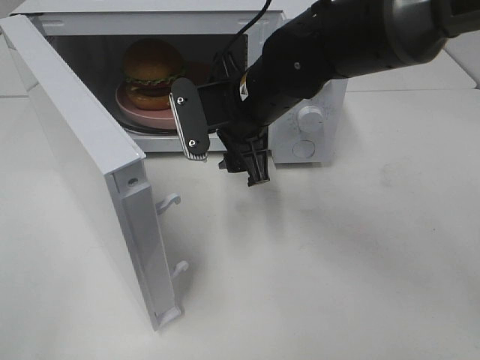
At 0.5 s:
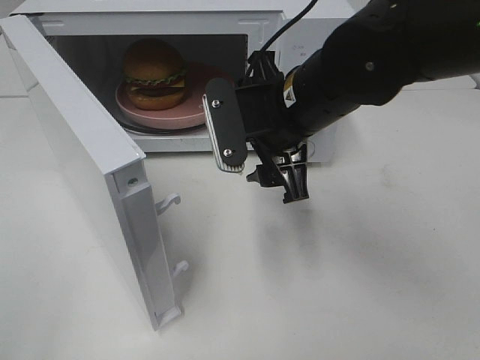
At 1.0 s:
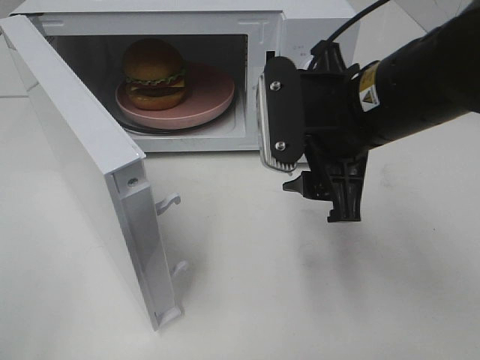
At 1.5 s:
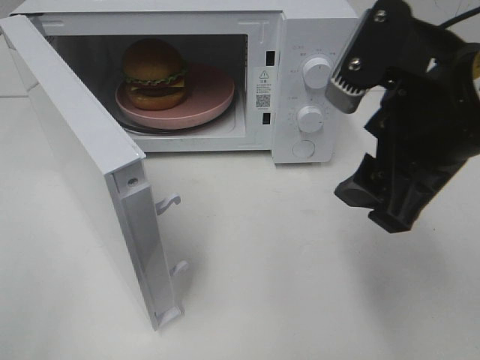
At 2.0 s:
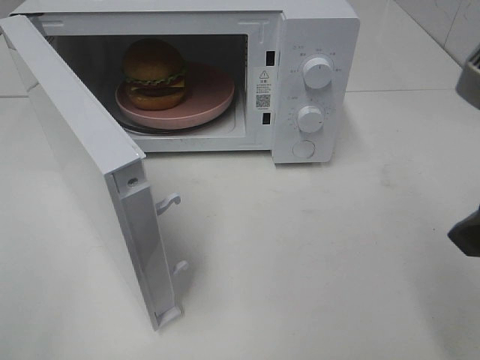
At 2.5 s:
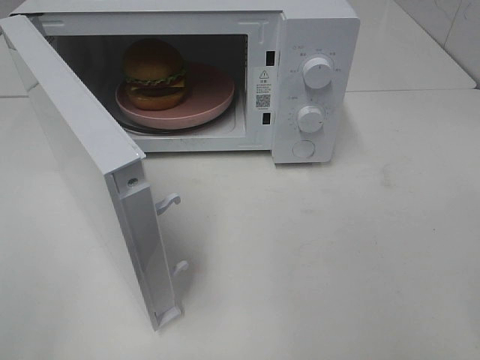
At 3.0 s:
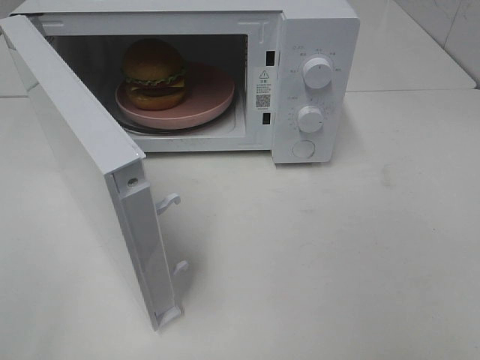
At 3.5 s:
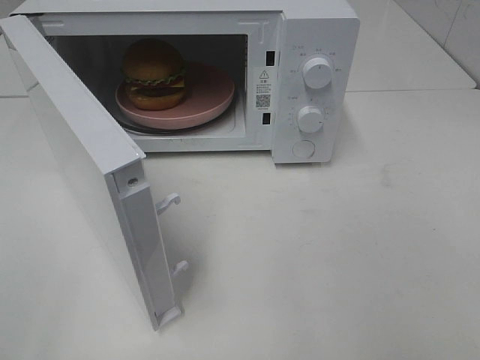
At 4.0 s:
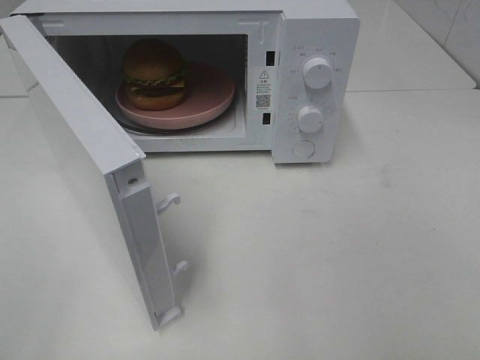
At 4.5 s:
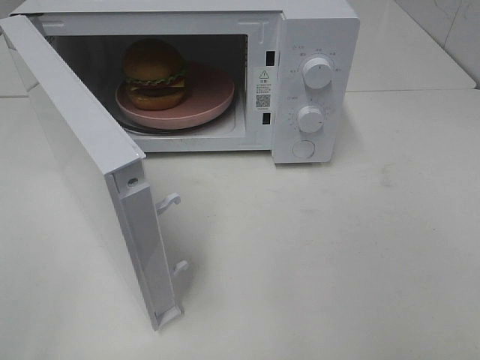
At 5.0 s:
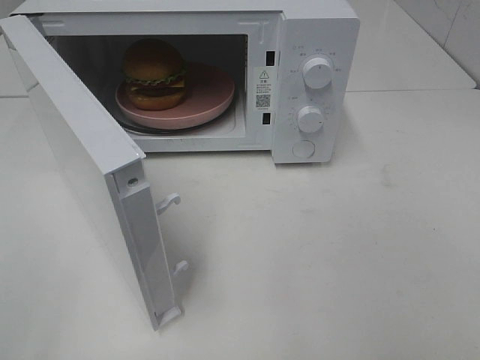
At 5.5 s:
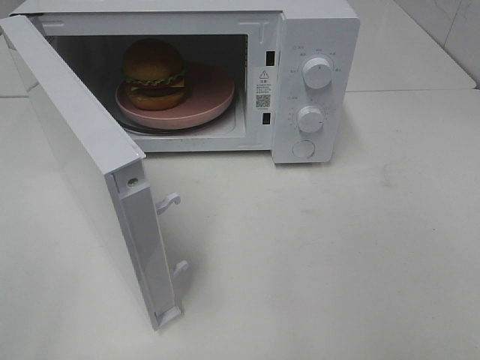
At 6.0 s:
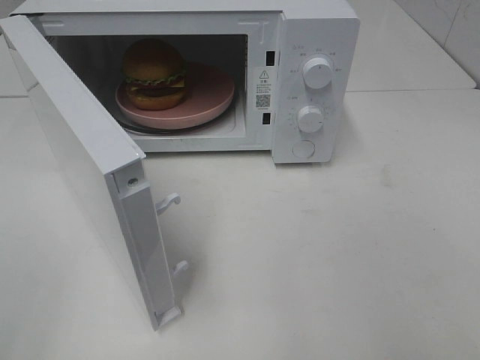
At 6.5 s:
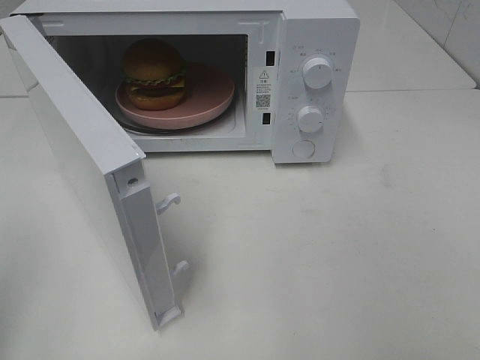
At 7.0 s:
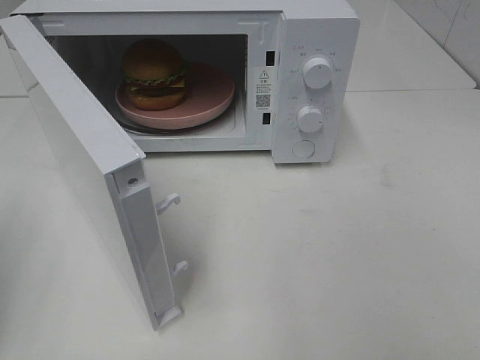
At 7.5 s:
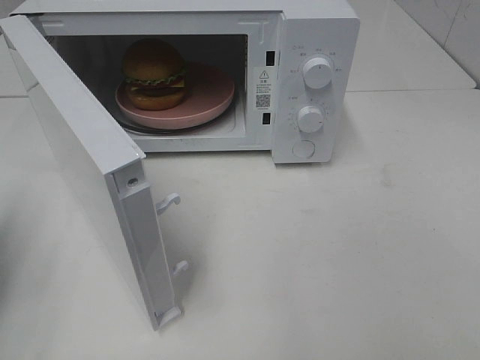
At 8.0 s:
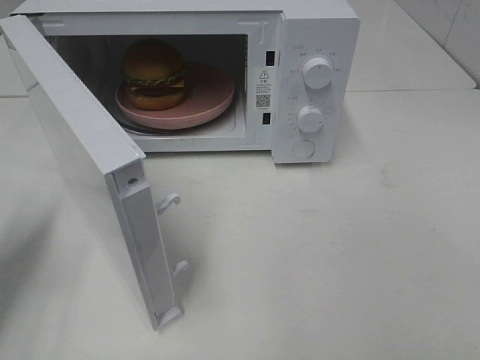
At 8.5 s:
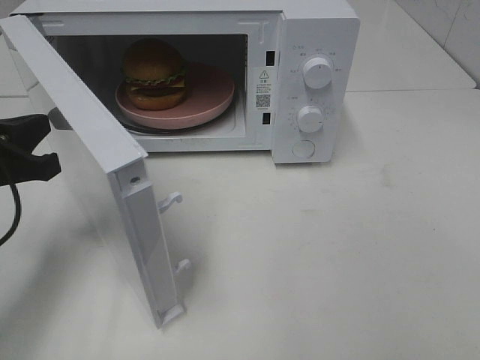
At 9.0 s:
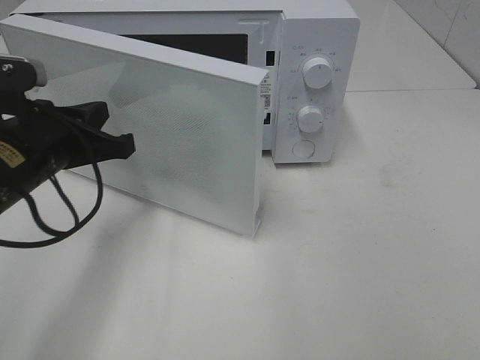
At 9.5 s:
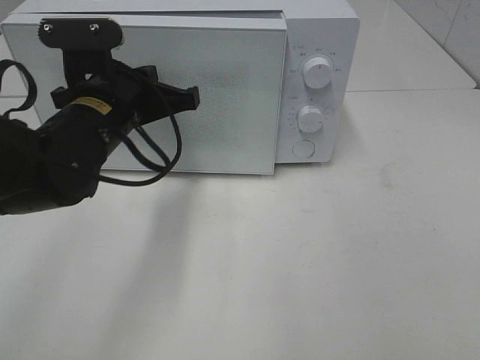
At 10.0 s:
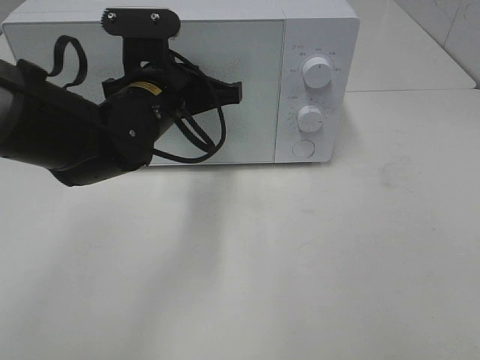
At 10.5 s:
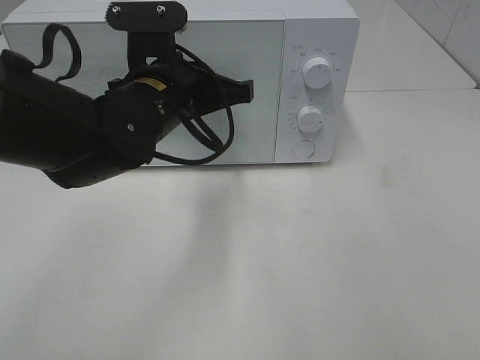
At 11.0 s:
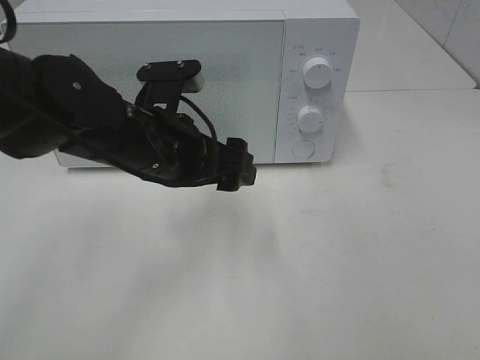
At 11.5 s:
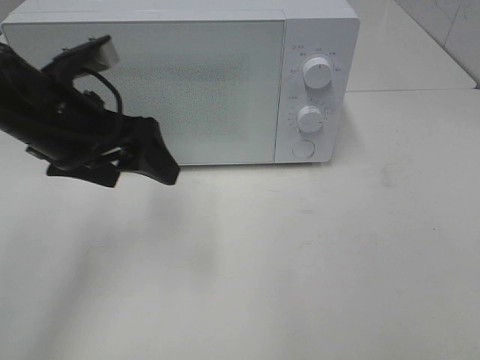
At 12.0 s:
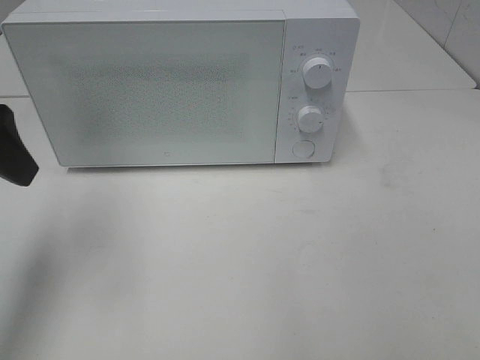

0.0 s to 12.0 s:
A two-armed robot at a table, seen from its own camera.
Task of the whole recording: Heat the burger.
Step, 0.0 to 10.5 s: Left hand: close the microwave door.
0.0 to 2.0 s: The right gripper moves backward, to the right and upward, roughly 30 cm.
2.0 to 4.0 s: The right gripper moves backward and to the right, about 15 cm.
6.0 to 8.0 s: The left gripper heads forward and downward, covering about 25 cm, and closes its fingers.
8.0 to 10.0 s: The left gripper shifts roughly 25 cm to the right and forward.
10.0 to 12.0 s: The left gripper moves to the left, upward and backward, some 25 cm, and opens up.

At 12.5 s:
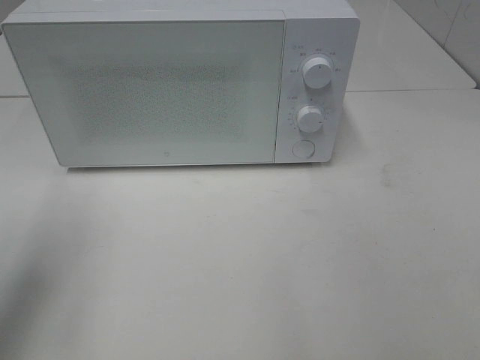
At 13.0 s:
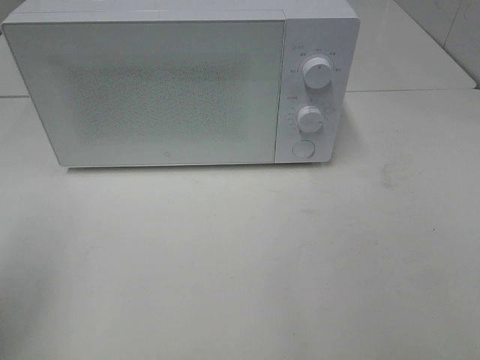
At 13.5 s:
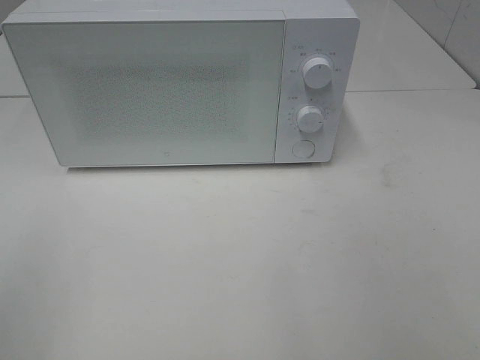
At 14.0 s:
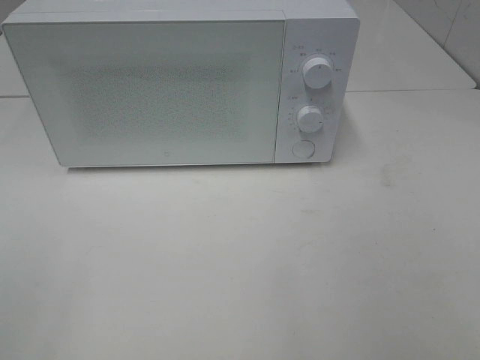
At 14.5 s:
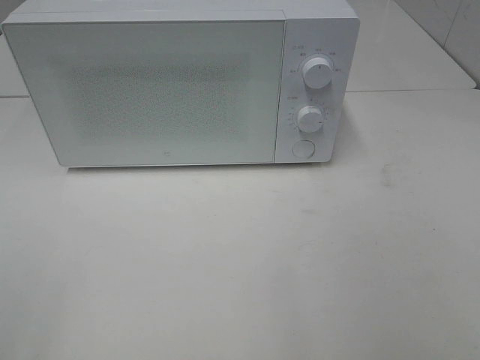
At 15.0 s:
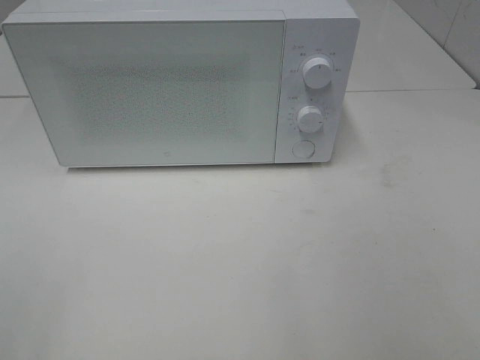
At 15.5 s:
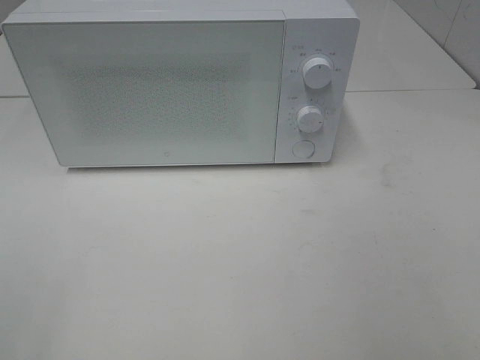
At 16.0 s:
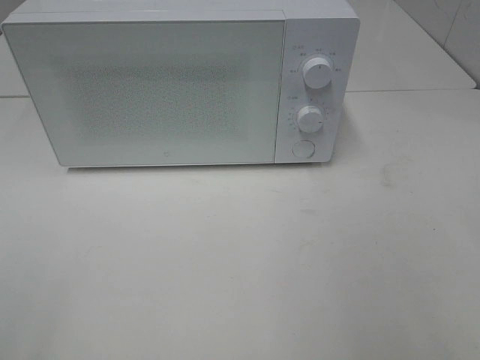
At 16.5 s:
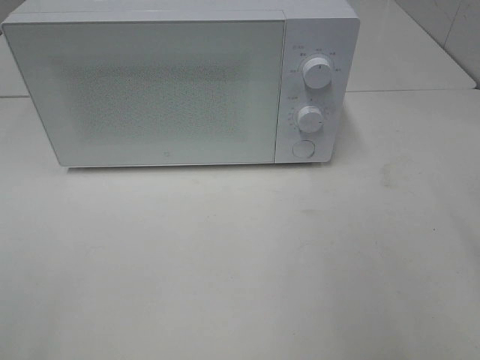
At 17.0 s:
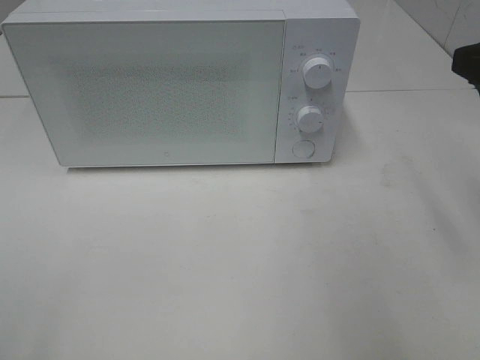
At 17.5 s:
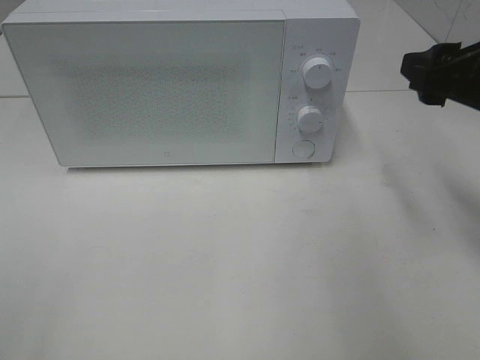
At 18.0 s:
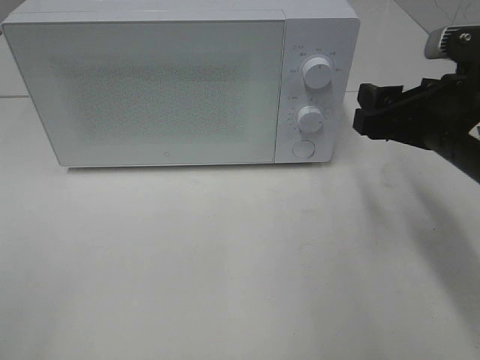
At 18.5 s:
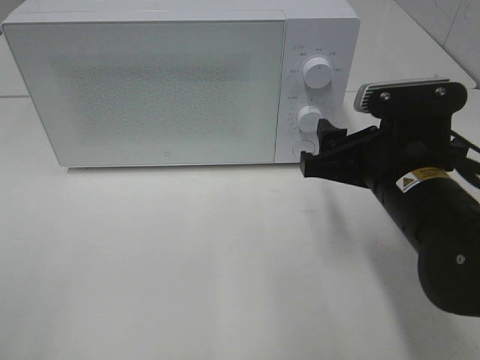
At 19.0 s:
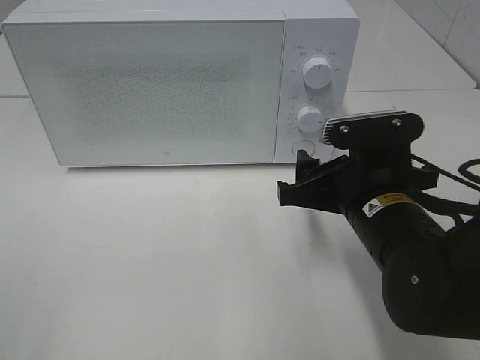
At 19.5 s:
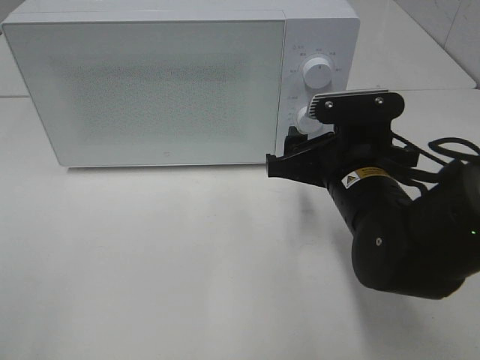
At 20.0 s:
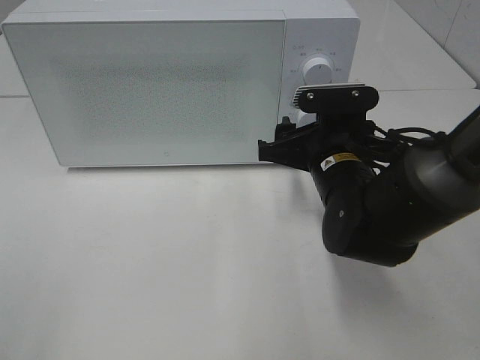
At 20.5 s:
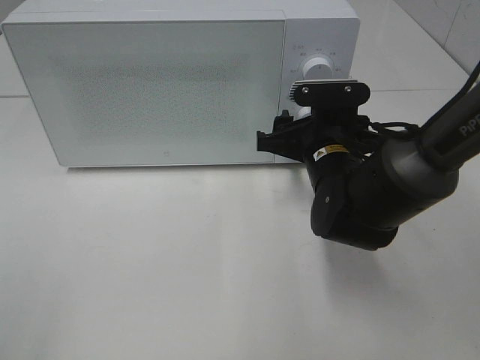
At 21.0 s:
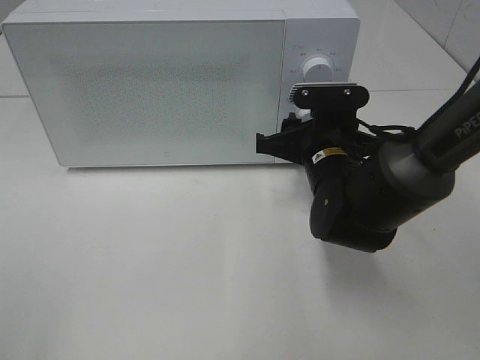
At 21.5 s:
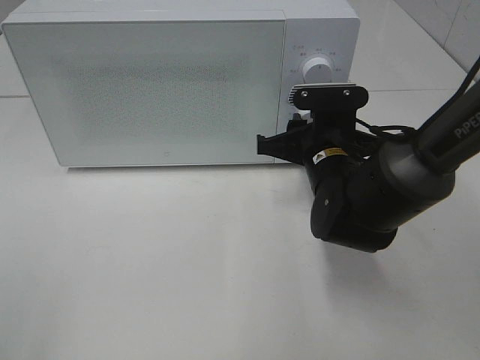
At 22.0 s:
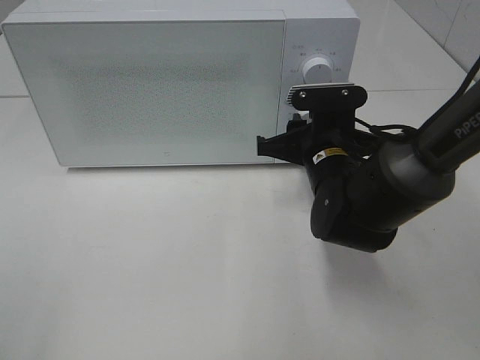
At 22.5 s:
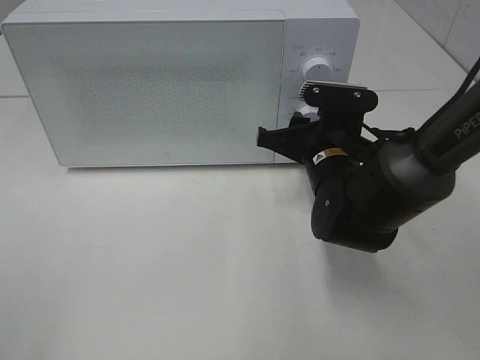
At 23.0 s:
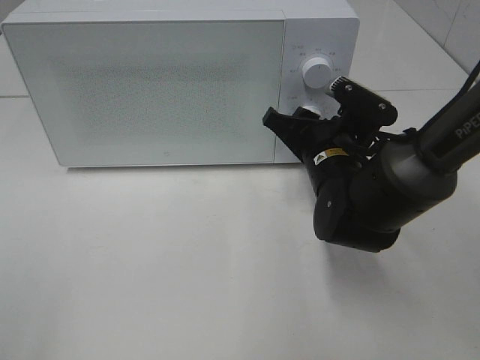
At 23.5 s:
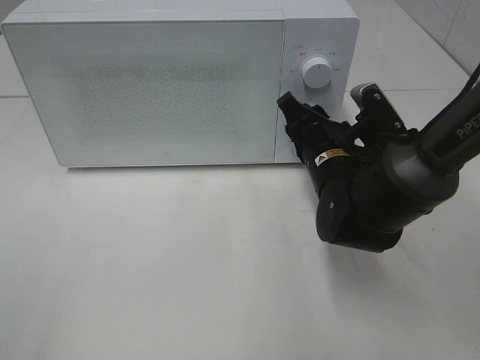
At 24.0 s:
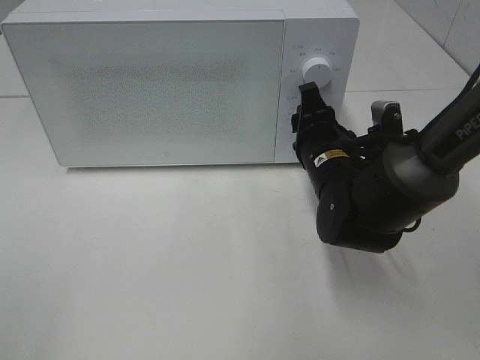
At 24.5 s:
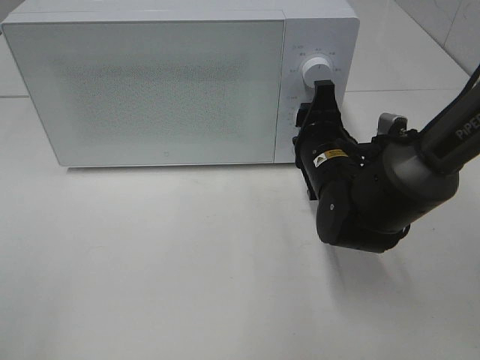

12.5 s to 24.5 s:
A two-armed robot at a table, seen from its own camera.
Task of the whole recording: Heat the burger.
12.5 to 14.5 s: The left gripper goes some 20 cm backward.
16.5 to 18.5 s: The right gripper is displaced downward, to the left and forward by roughly 20 cm.
18.5 to 20.5 s: The right gripper moves forward, approximately 10 cm.
20.5 to 22.5 s: The right gripper closes its fingers.

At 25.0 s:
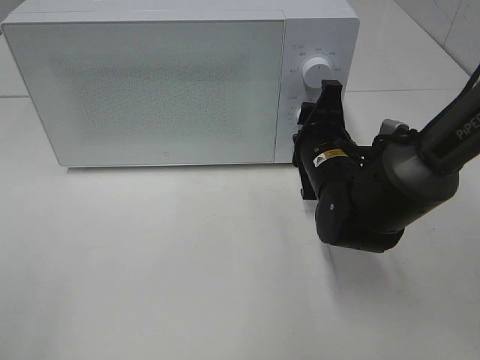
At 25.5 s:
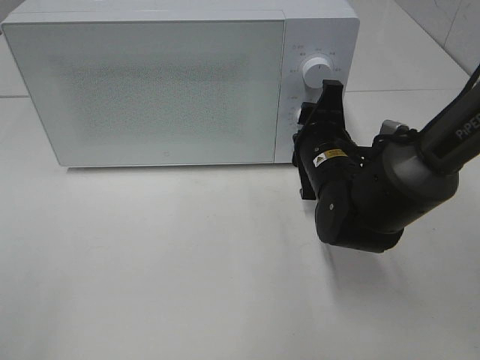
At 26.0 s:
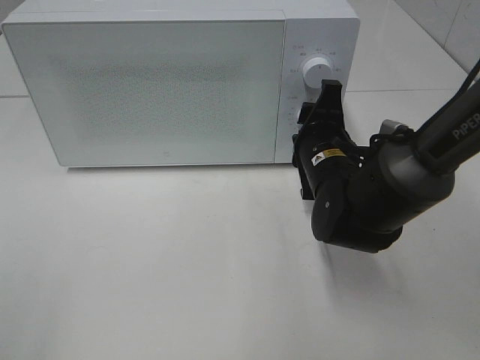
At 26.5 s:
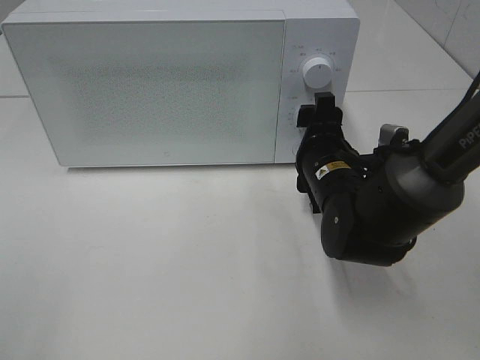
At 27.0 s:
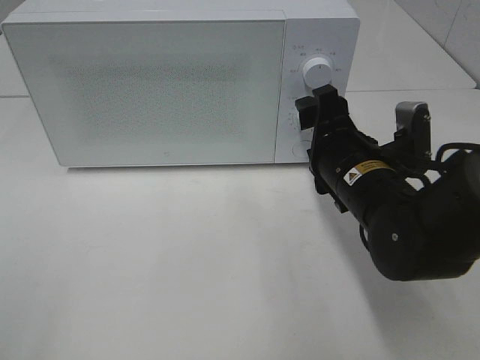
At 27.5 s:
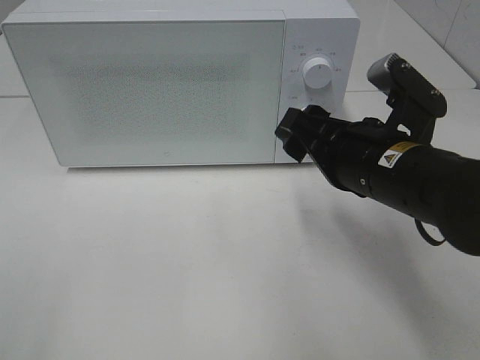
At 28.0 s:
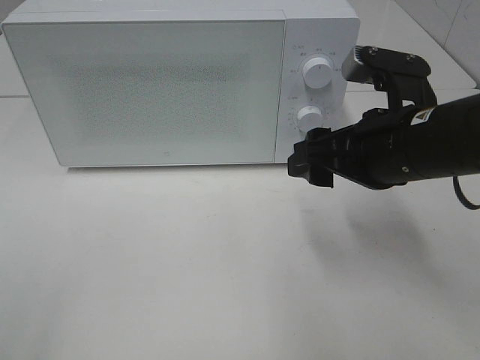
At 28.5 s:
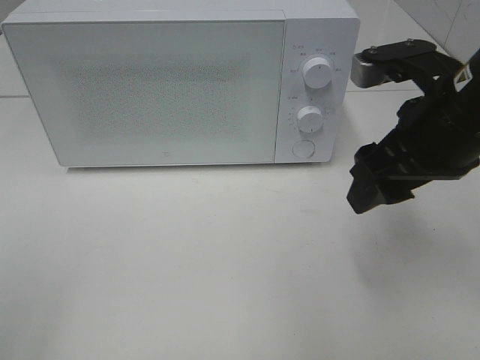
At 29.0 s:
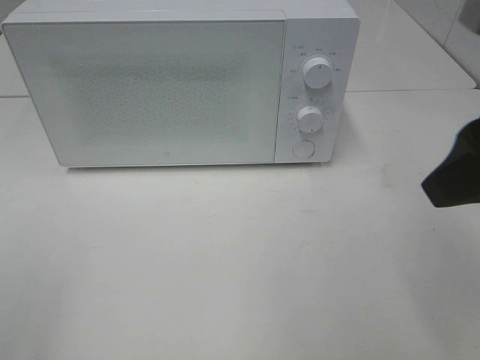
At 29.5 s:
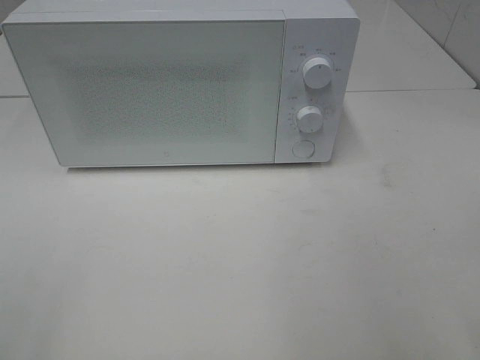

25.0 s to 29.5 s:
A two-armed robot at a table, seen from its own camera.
Task of the whole recording: Heat the burger.
25.0 to 27.0 s: The right gripper is displaced backward by about 5 cm, and opens up.
27.0 to 29.5 s: The right gripper shifts roughly 30 cm backward, upward and to the right.
